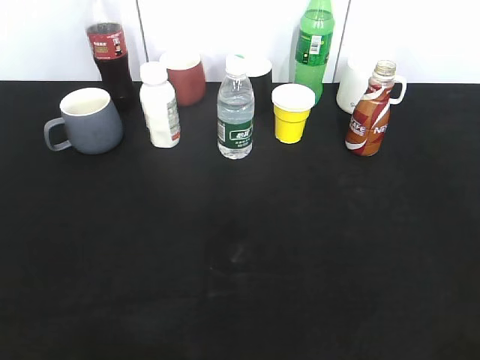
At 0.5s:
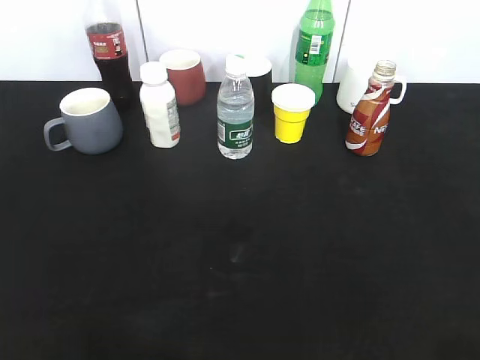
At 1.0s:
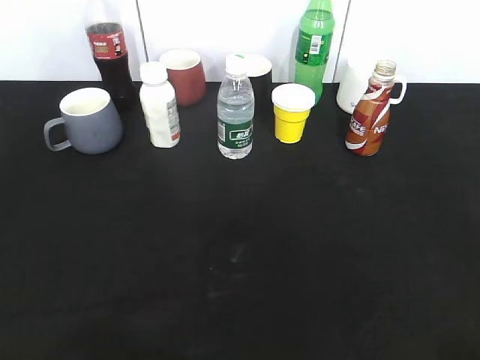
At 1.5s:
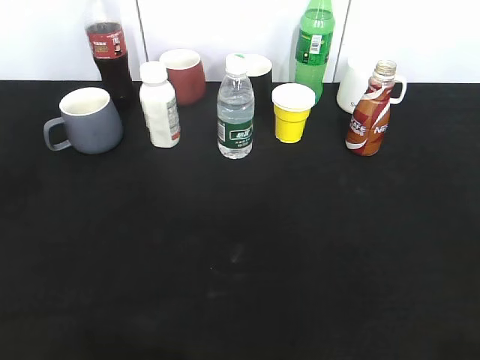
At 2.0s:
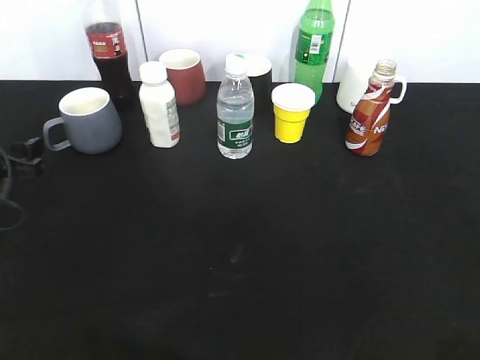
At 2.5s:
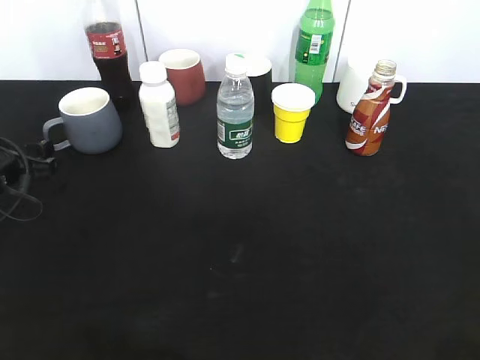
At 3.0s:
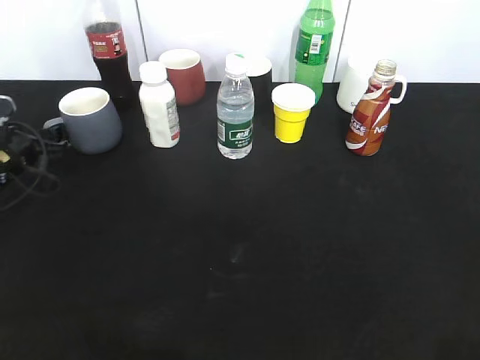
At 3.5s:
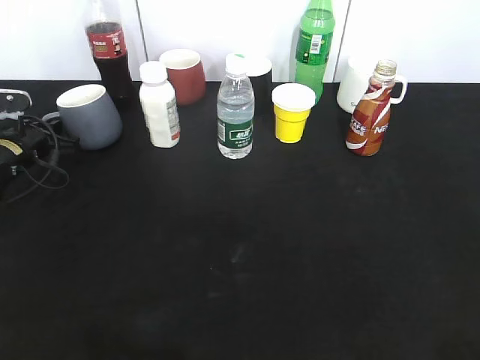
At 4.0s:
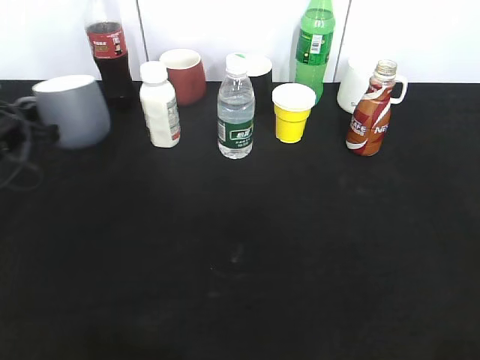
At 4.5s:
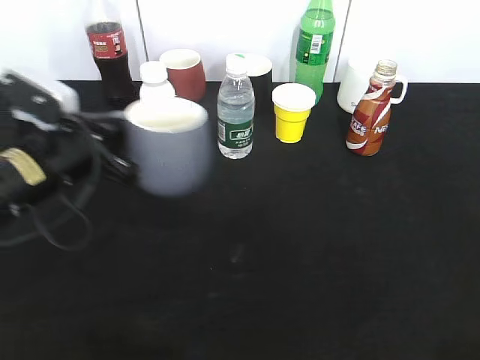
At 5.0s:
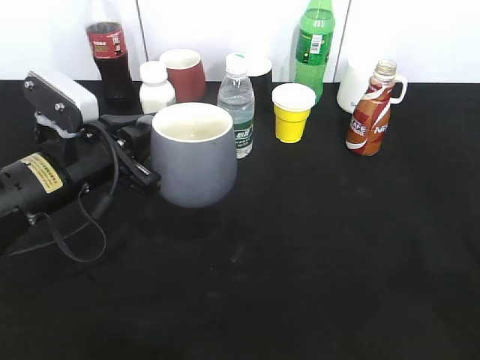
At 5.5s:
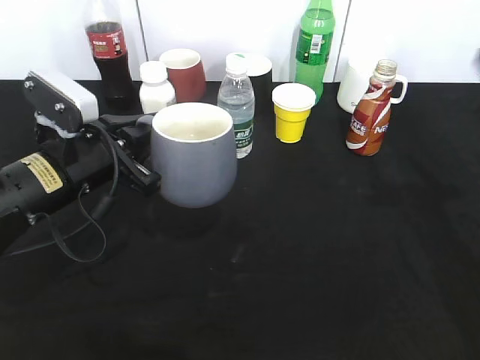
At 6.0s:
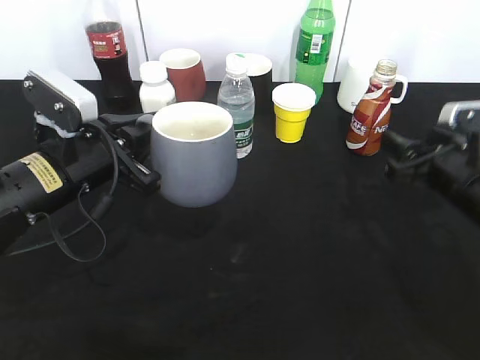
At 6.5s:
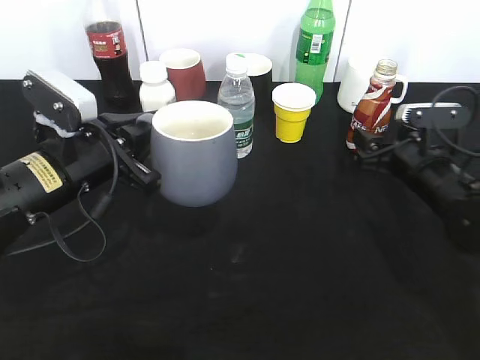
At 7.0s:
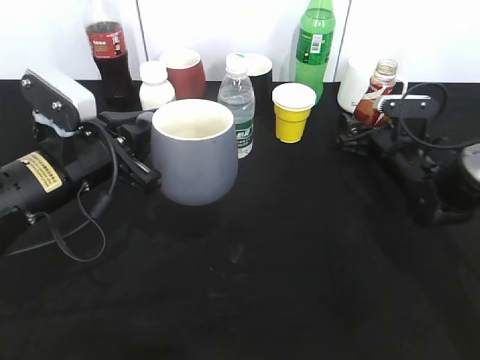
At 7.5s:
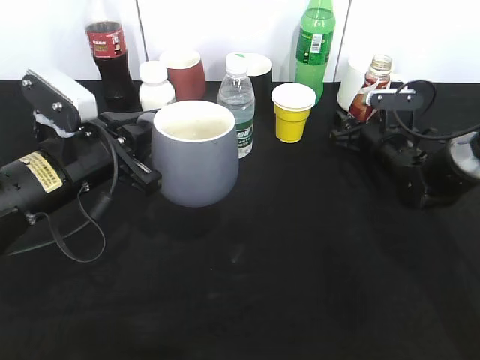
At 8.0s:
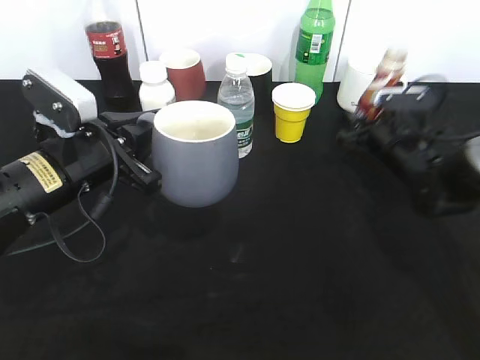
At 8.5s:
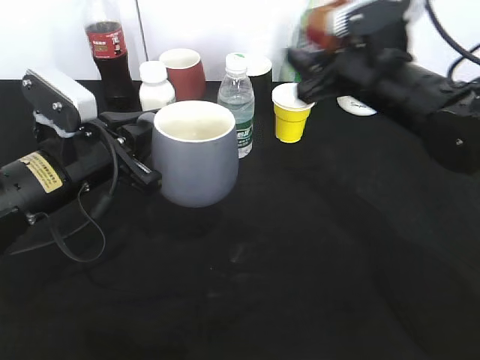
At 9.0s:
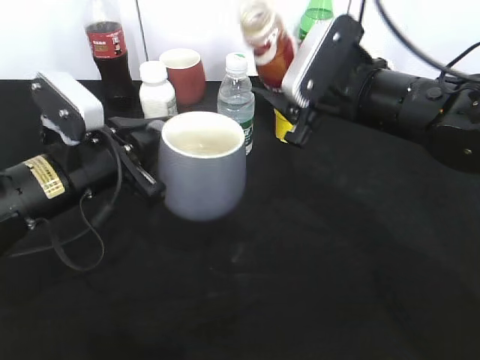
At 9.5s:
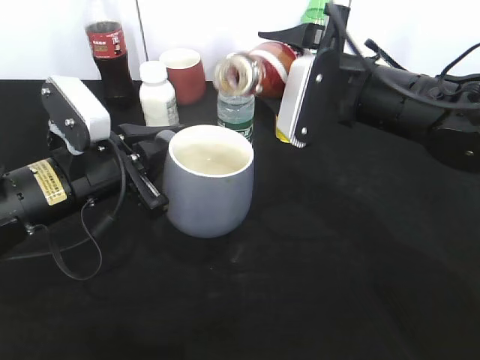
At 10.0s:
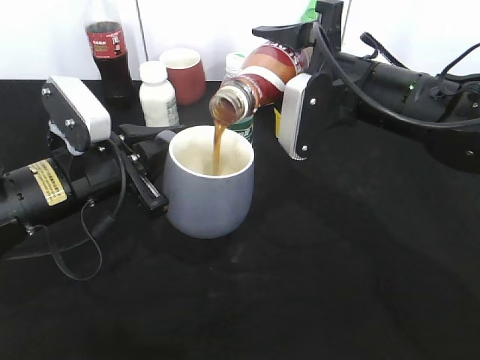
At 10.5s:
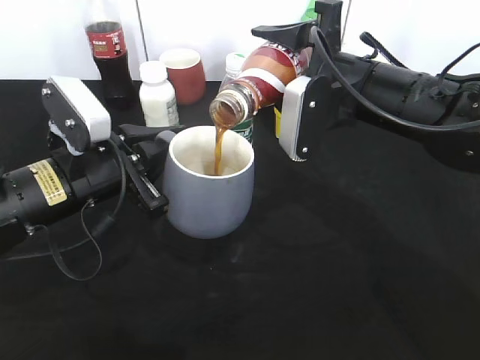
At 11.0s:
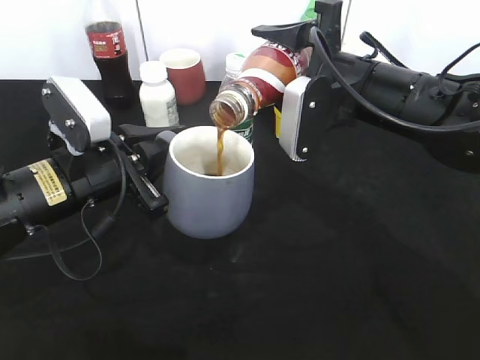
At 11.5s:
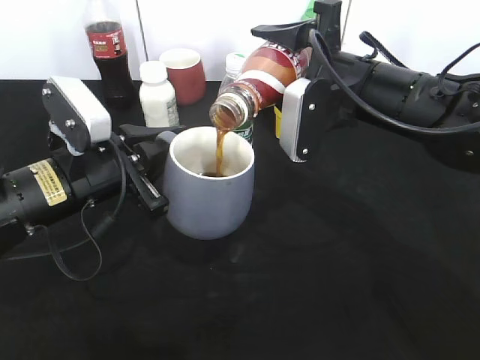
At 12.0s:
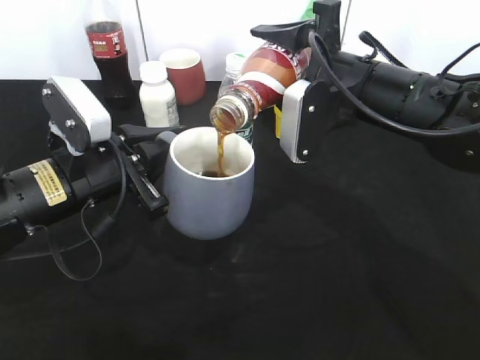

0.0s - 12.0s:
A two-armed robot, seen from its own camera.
Step, 2.0s - 3.5s: Grasp the grey cup with left gripper.
Step, 4.0s - 5.0s: Lift the grey cup with left gripper.
Step, 6.0s - 7.5s: Grasp the bottle with coffee with right gripper.
0.0s - 2.0s: The left gripper shifts roughly 35 cm forward and downward.
2.0s - 4.0s: The left gripper closes.
4.0s - 6.0s: The left gripper travels to the right and backward by about 15 cm, while the right gripper shifts about 30 cm forward and downward.
6.0s - 8.0s: The right gripper travels forward and downward by roughly 15 cm, and closes its fingers.
8.0s - 10.0s: The right gripper shifts approximately 20 cm upward, to the left and backward.
10.0s - 12.0s: The two grippers keep their place.

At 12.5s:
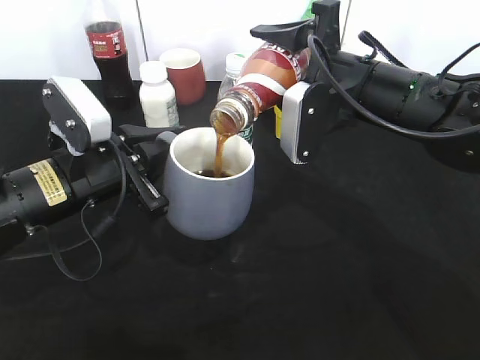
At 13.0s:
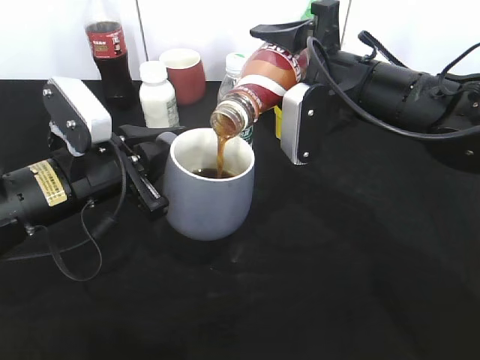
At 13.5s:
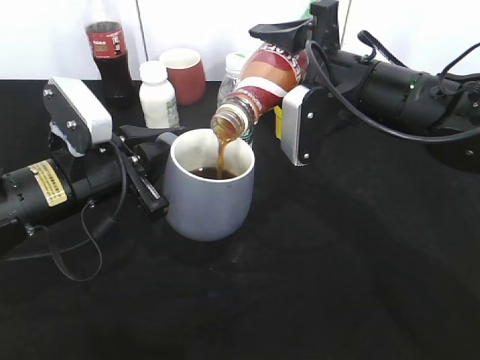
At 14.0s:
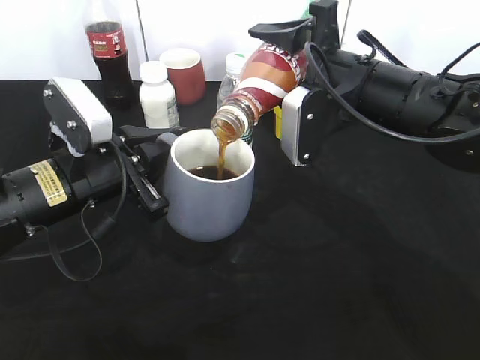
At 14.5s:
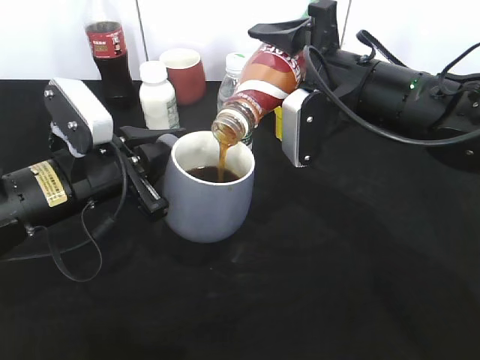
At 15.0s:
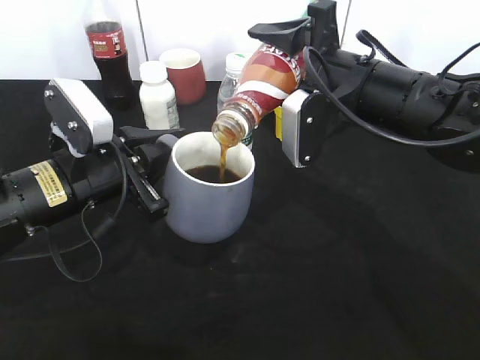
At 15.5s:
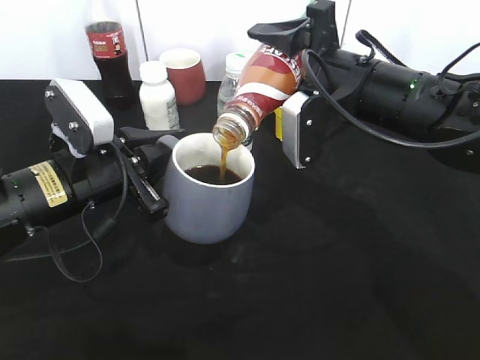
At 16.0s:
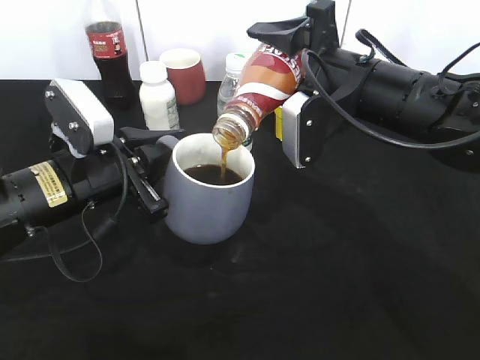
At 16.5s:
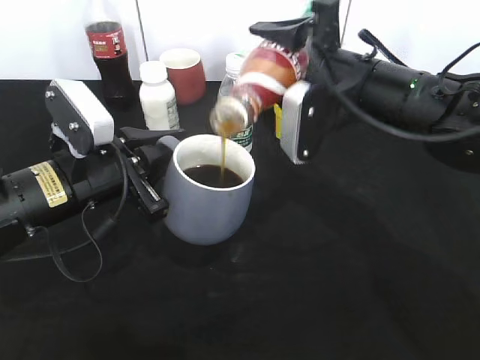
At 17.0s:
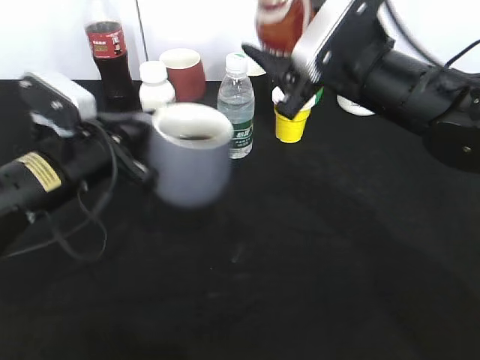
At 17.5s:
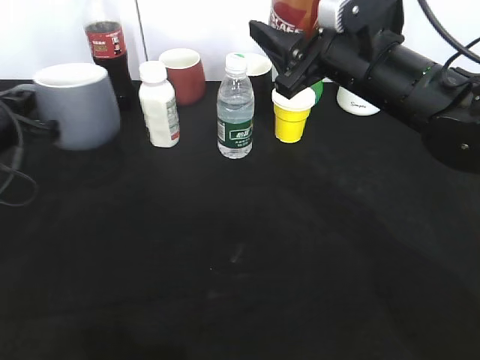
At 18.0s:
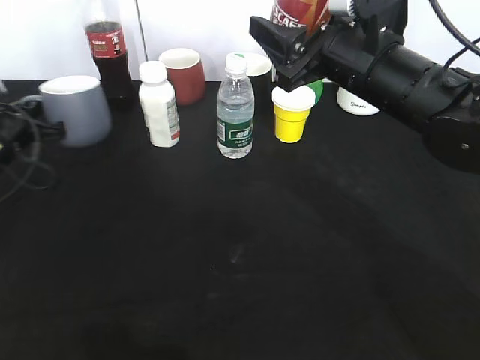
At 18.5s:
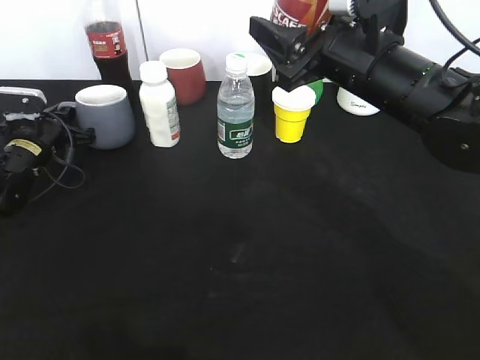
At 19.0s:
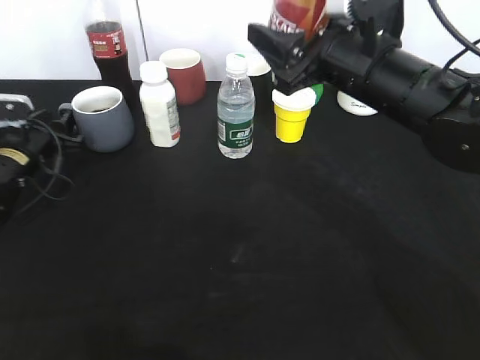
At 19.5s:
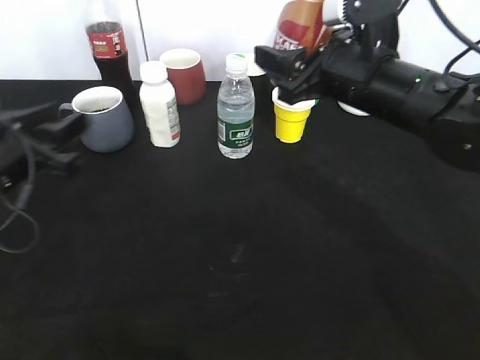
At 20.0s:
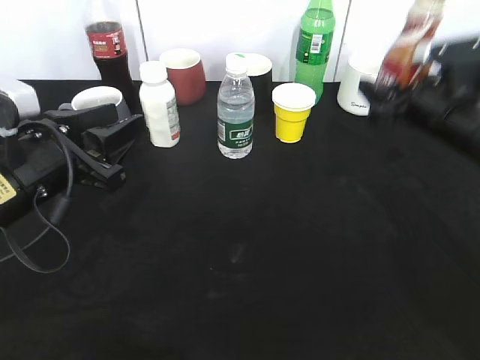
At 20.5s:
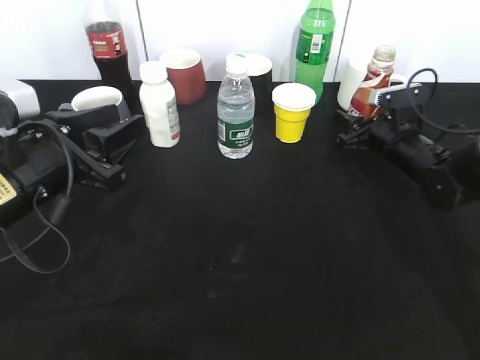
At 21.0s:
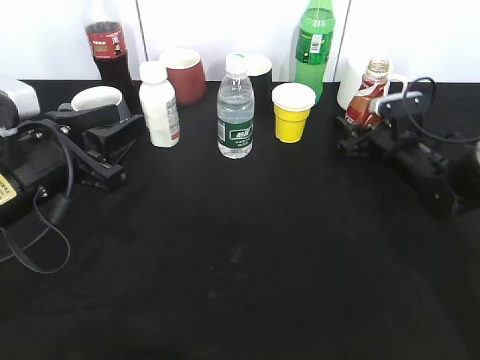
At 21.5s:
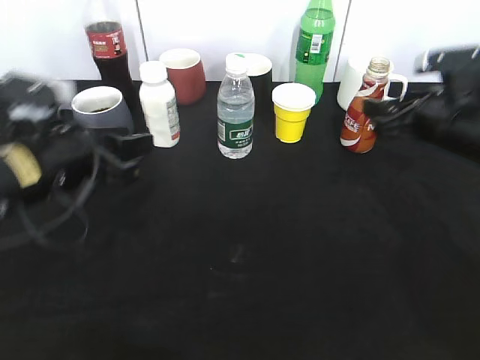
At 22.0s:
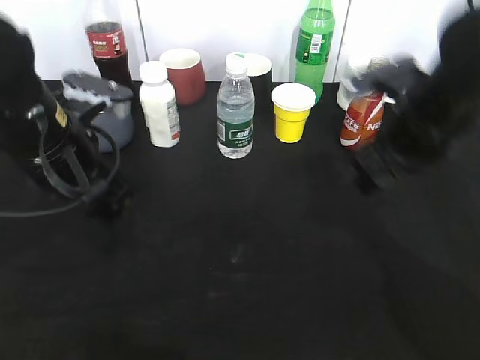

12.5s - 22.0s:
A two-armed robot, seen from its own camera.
Step, 12.5s - 16.5s: Pour the coffee from bottle to cup with right gripper.
Step, 17.0s - 18.5s: Place the grey cup on the table with left gripper.
Step, 19.0s - 21.0s: Place the coffee bottle on the table with right gripper.
12.5s - 16.5s: There are only small adjustments of the grippers.
16.5s - 18.0s: The left gripper is displaced to the left and forward by about 20 cm.
18.0s - 20.0s: The right gripper shifts roughly 15 cm to the right and downward. The left gripper heads backward, to the right and upward, covering roughly 20 cm, and opens.
20.0s - 22.0s: The left gripper moves approximately 5 cm. Meanwhile the right gripper moves to the left and upward, approximately 10 cm, and opens up.

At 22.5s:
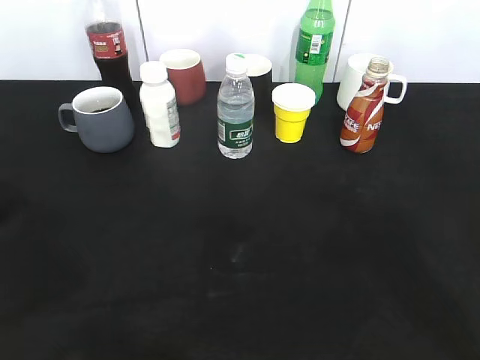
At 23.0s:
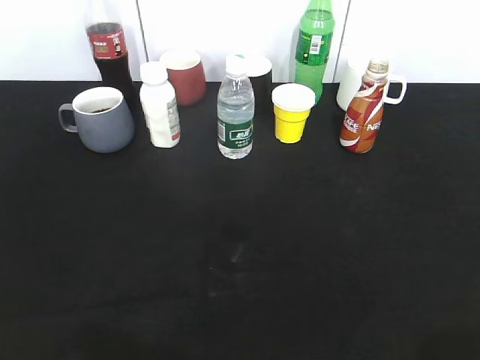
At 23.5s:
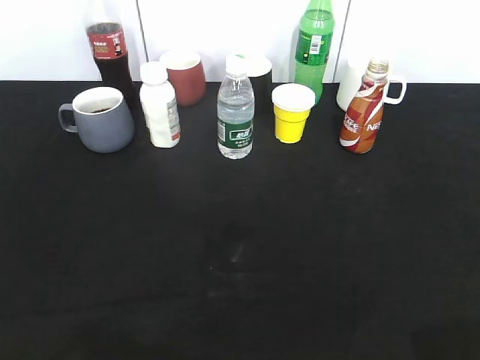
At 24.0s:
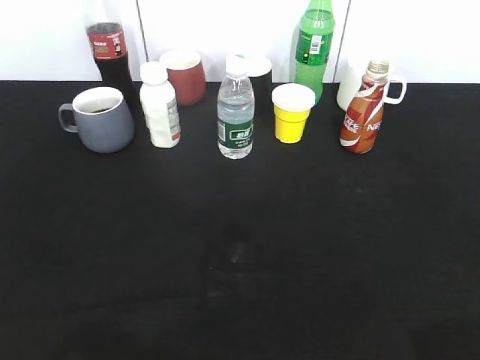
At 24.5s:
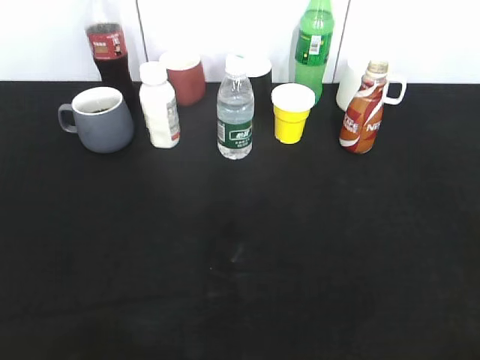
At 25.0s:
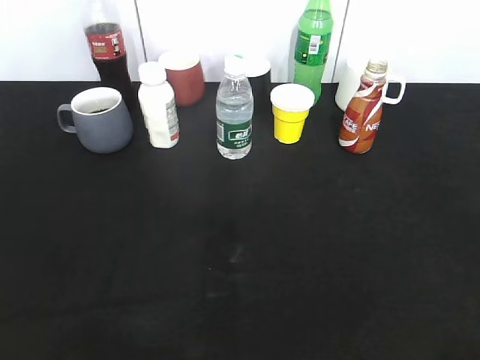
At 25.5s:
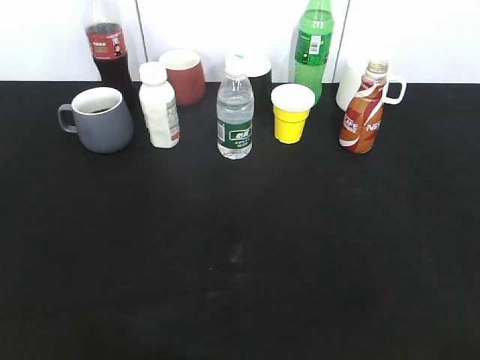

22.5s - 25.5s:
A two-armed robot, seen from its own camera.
22.5s - 24.0s: The right gripper is displaced backward, downward and to the right by approximately 20 cm; the left gripper moves backward, to the left and downward, roughly 15 cm.
